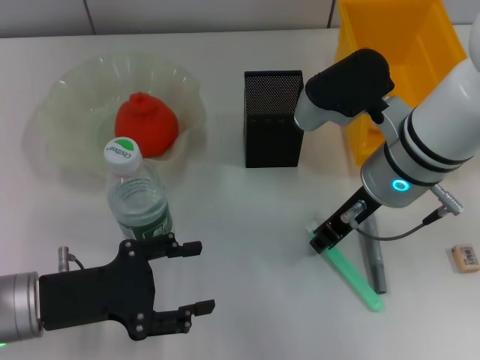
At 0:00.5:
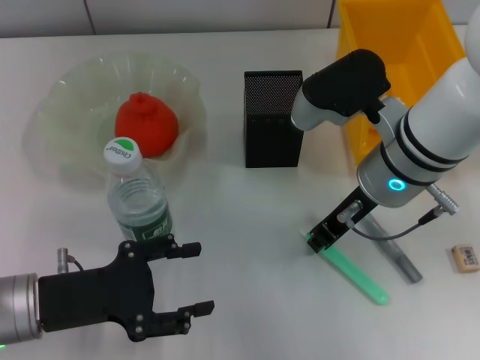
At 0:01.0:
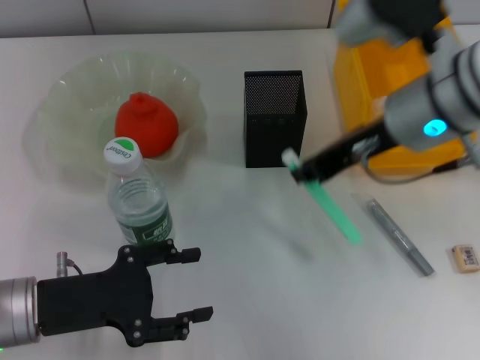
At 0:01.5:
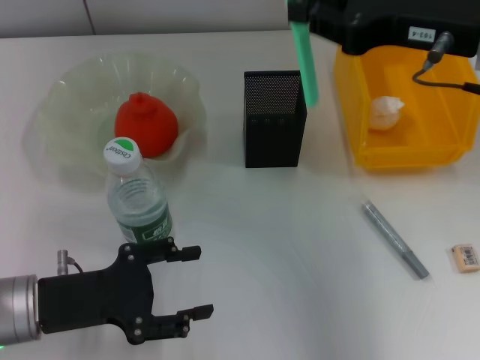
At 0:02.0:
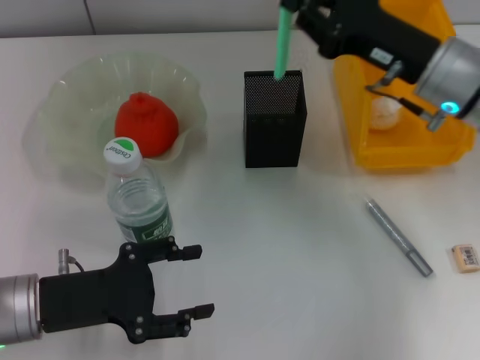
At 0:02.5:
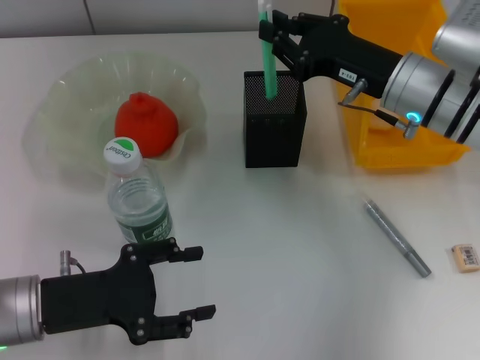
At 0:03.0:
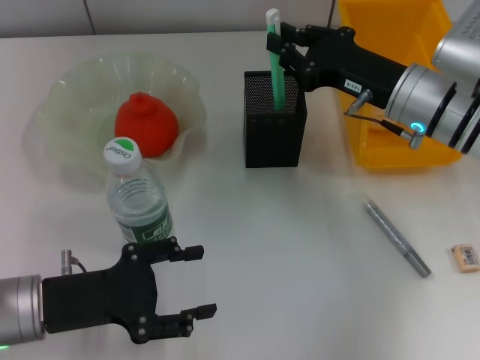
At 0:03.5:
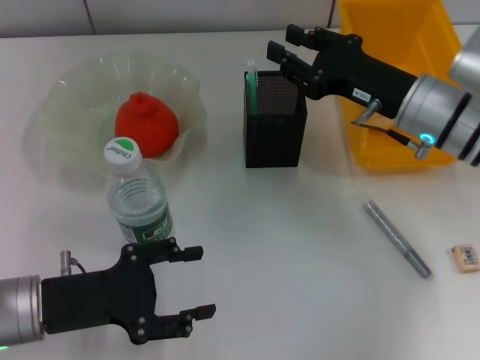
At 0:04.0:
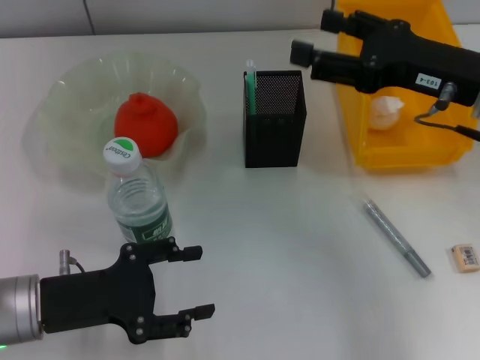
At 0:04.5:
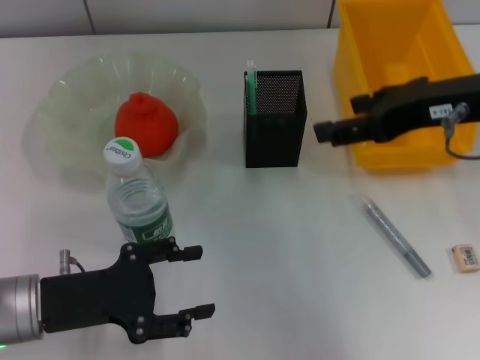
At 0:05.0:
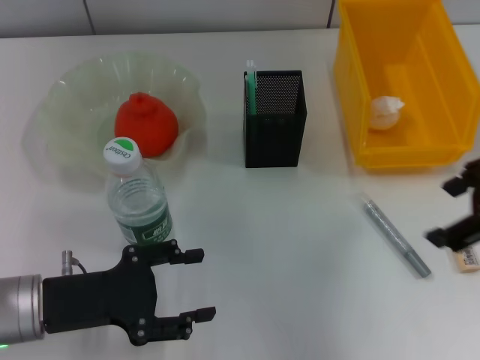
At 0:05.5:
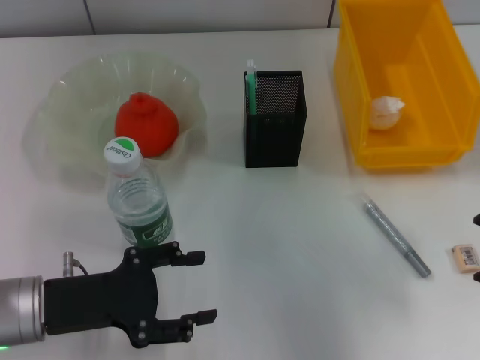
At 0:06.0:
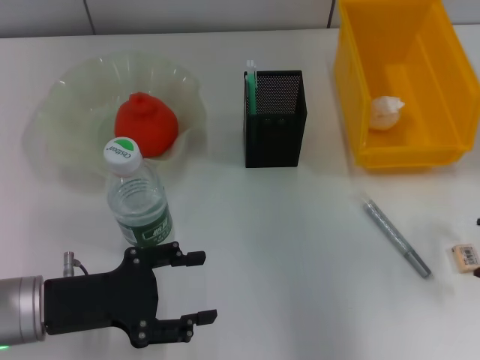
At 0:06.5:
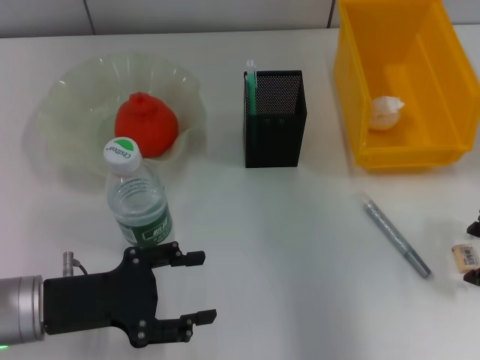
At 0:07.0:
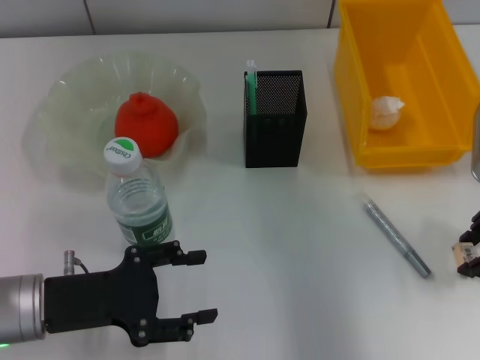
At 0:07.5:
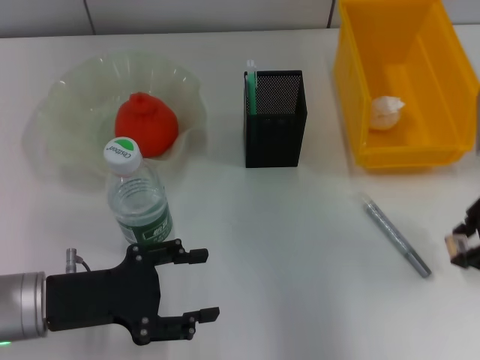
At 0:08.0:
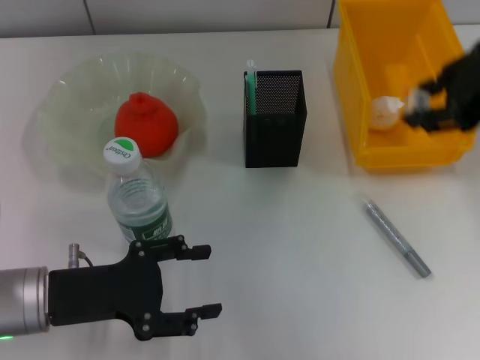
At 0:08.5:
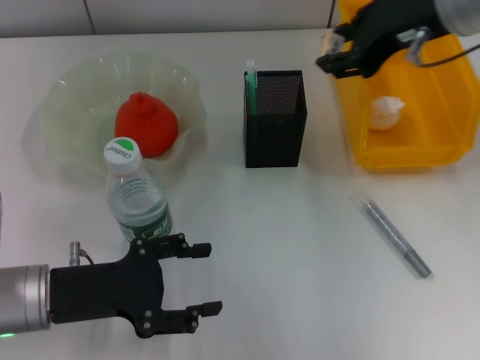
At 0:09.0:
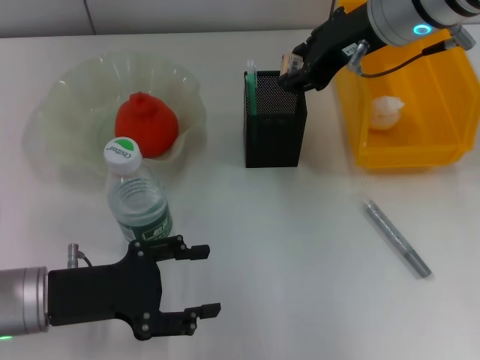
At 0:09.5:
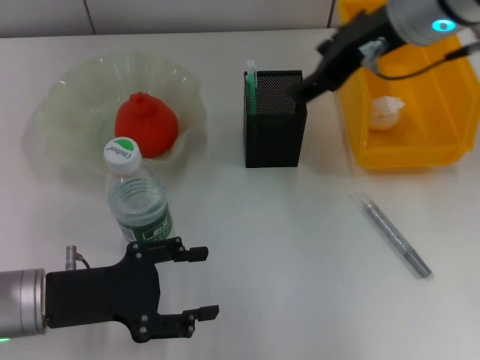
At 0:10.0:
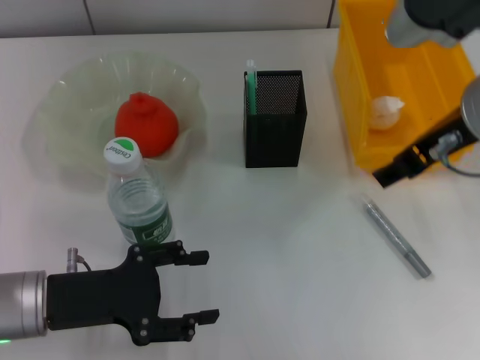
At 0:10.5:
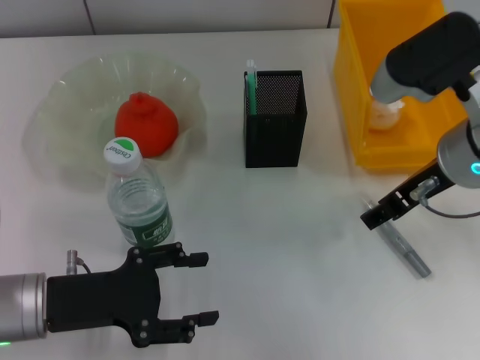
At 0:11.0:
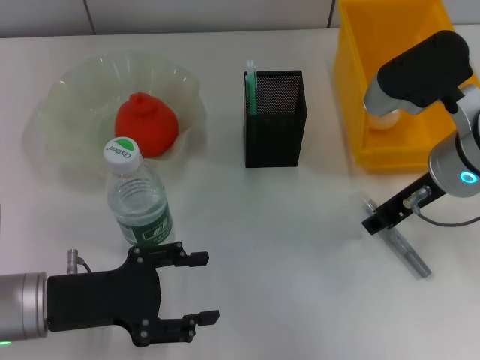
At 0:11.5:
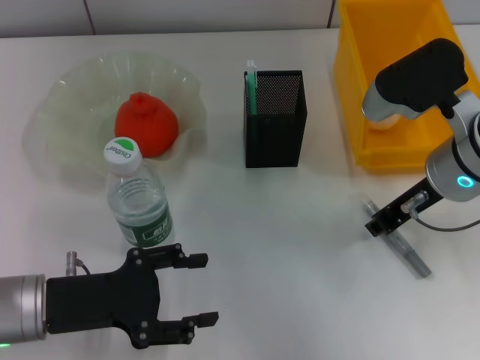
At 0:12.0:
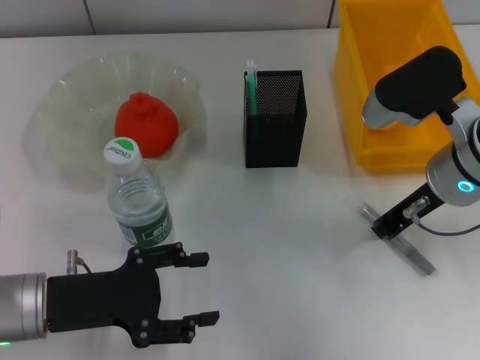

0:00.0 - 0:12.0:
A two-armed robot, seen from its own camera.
Step, 0:01.0 - 0:03.0: Place the blue utility knife into the pen holder with the right hand.
Step, 0:03.5 - 0:07.0: Grab the eraser with the right hand.
Step, 0:07.5 - 0:09.0: Put the eraser into the pen holder with the right hand.
Step, 0:09.5 - 0:11.5: Grab the gray glue with the right hand.
0:00.0 - 0:02.0: The right gripper heads to the right, covering approximately 5 cm, and moves approximately 10 cm upward and comes back.
0:02.0 - 0:04.0: The right gripper moves approximately 5 cm, and opens its fingers.
0:04.0 - 0:06.0: The right gripper is displaced to the right by roughly 5 cm.
0:06.0 - 0:08.0: The right gripper heads upward and to the left, covering roughly 10 cm, and closes its fingers.
0:08.0 - 0:10.0: The right gripper is displaced downward by approximately 5 cm, and opens up.
0:10.0 - 0:12.0: The right gripper is displaced downward by approximately 10 cm, and closes its fingers.

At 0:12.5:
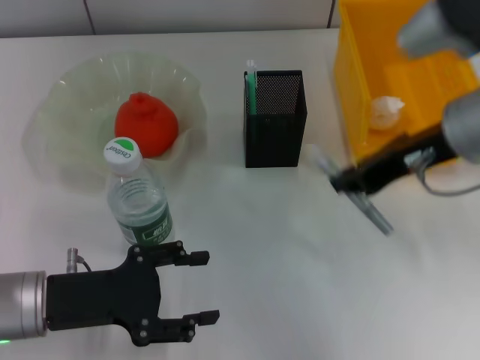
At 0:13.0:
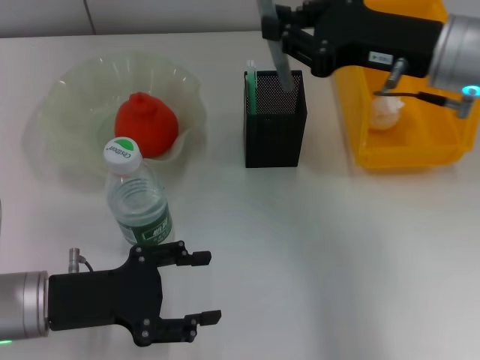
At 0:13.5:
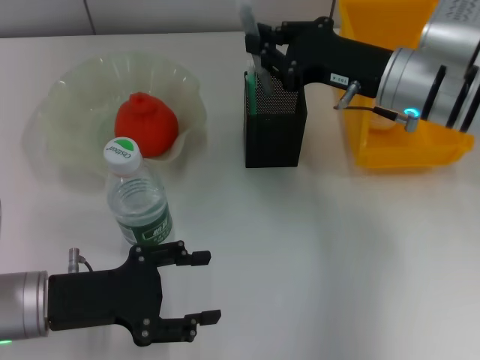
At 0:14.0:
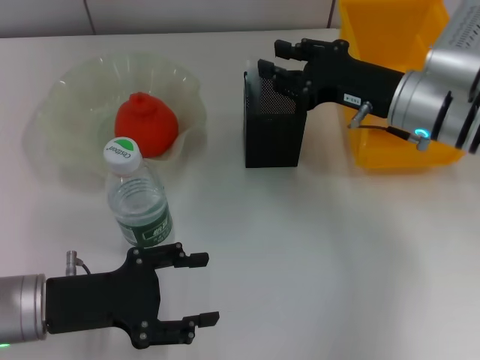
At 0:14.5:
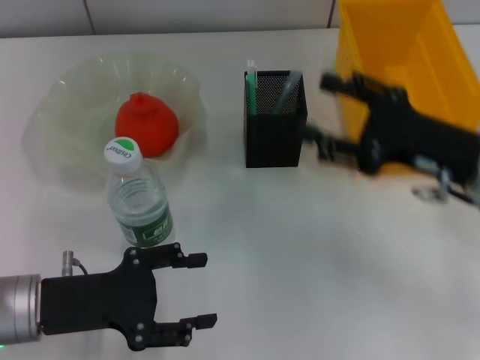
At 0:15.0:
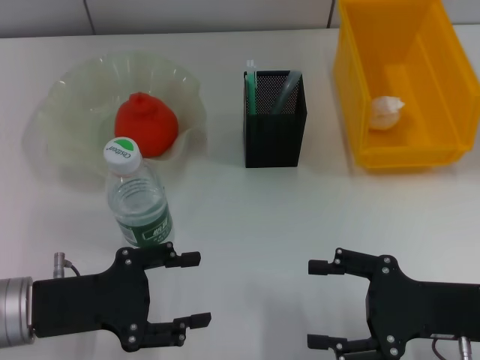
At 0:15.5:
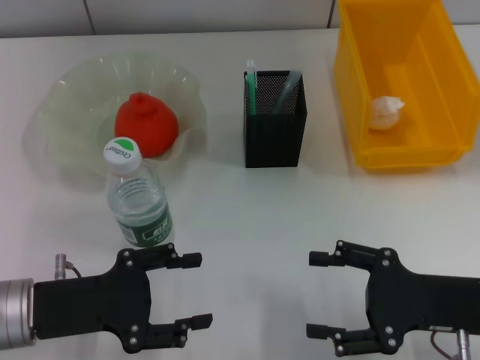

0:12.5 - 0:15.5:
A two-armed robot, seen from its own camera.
Step, 0:12.5 - 0:13.5: Place the gray glue into the pen holder with the right hand.
0:12.5 - 0:14.0: The right gripper heads downward and forward, covering about 10 cm.
0:14.0 - 0:15.5: The right gripper shifts about 15 cm backward, and opens.

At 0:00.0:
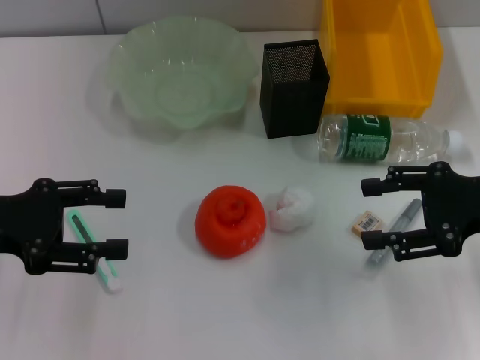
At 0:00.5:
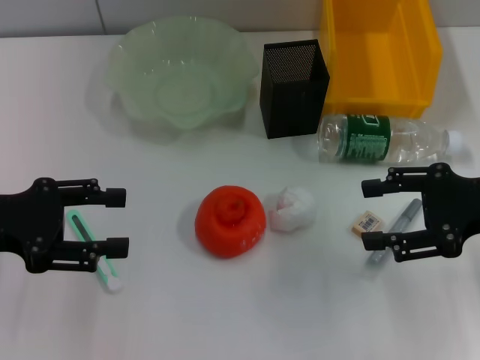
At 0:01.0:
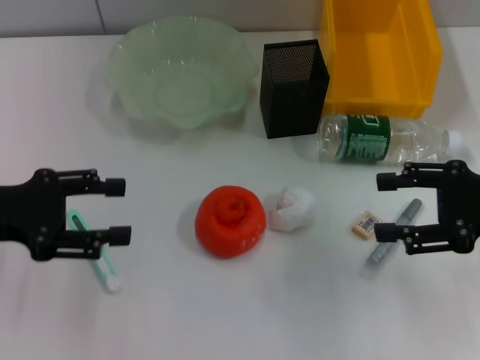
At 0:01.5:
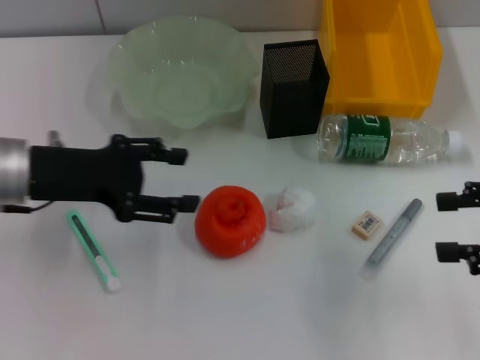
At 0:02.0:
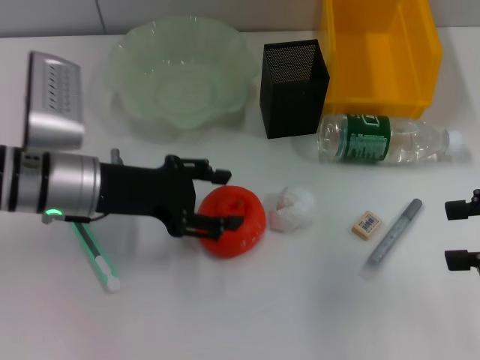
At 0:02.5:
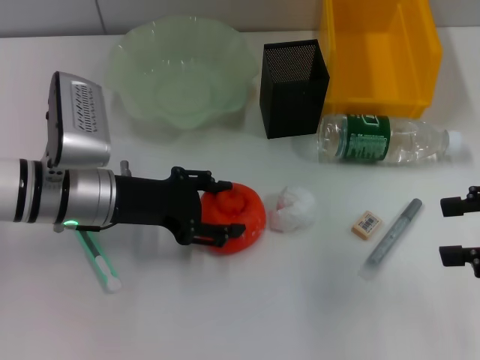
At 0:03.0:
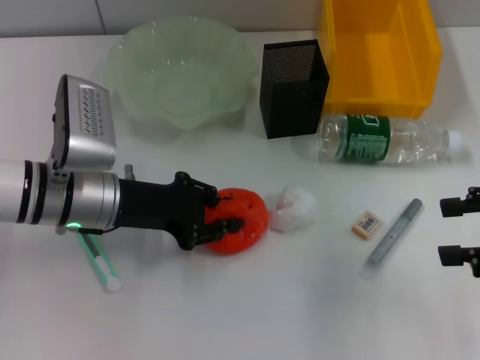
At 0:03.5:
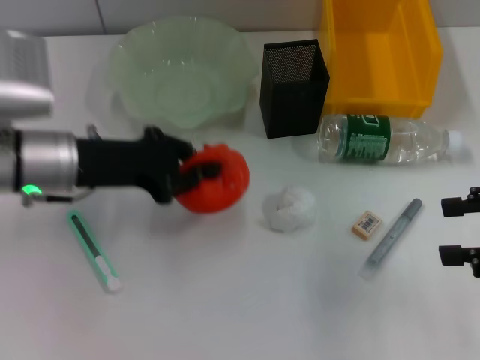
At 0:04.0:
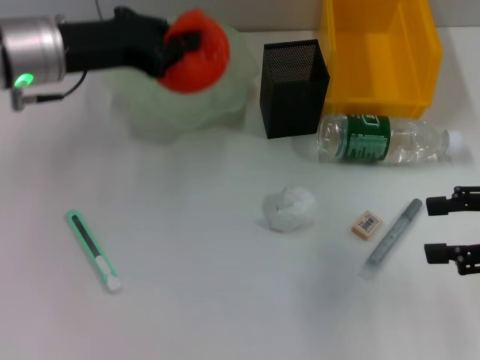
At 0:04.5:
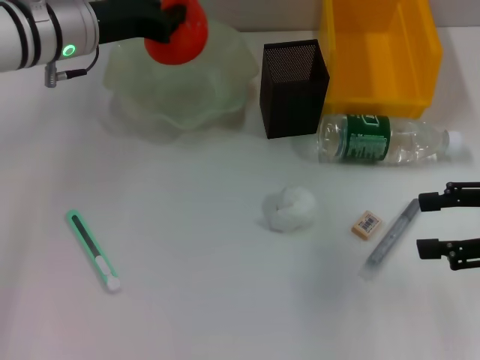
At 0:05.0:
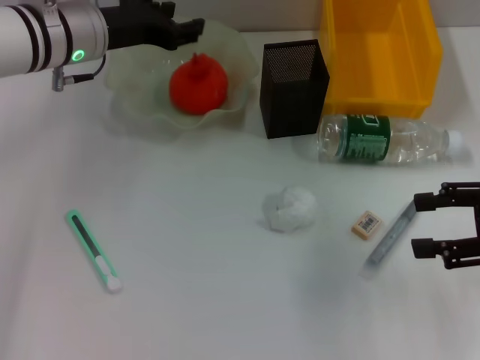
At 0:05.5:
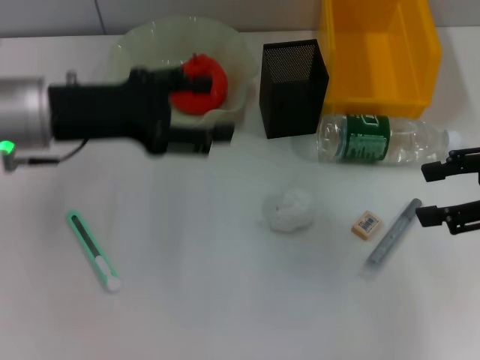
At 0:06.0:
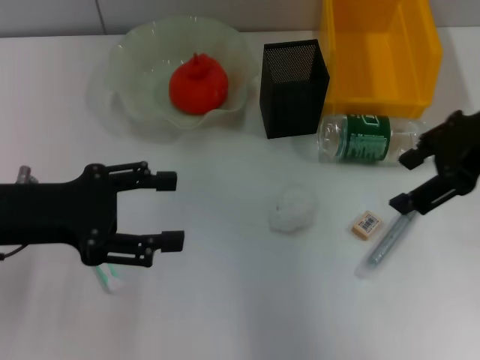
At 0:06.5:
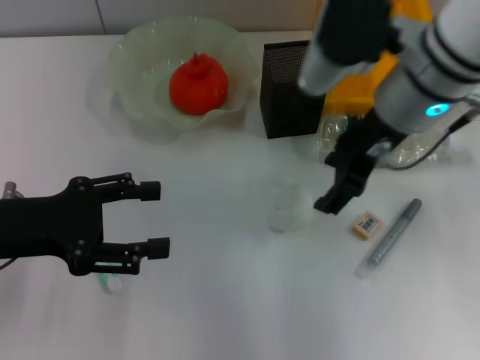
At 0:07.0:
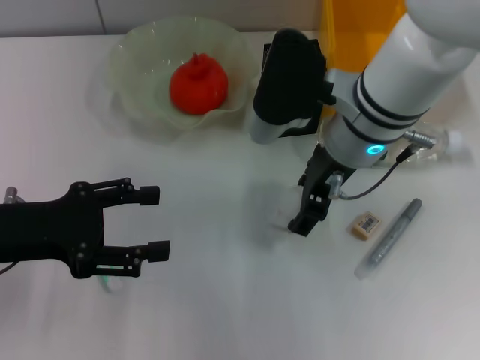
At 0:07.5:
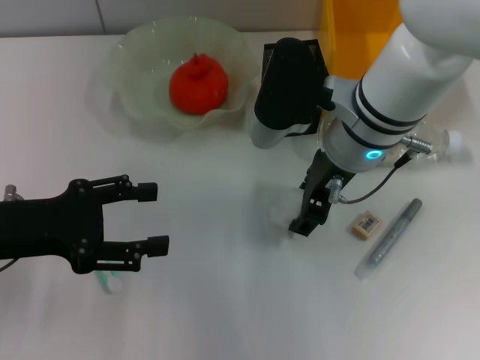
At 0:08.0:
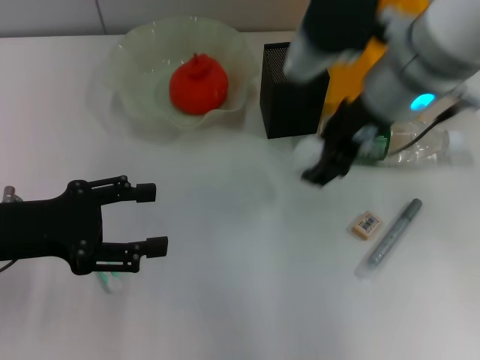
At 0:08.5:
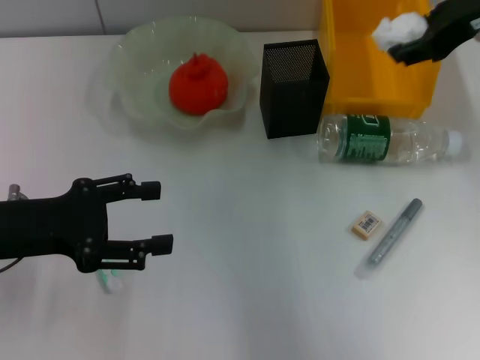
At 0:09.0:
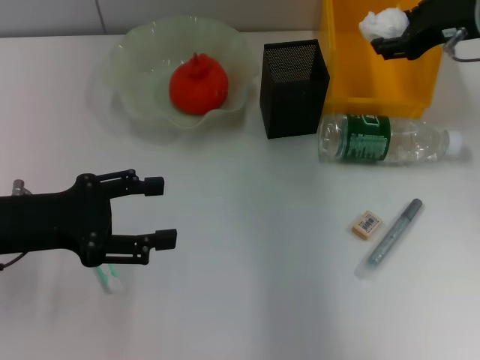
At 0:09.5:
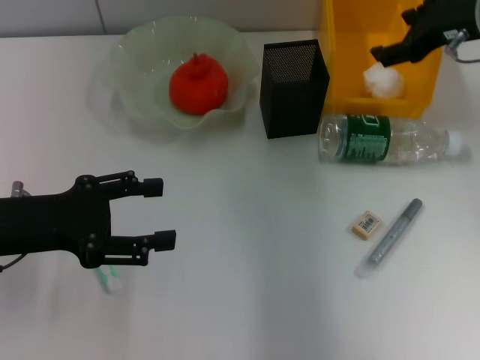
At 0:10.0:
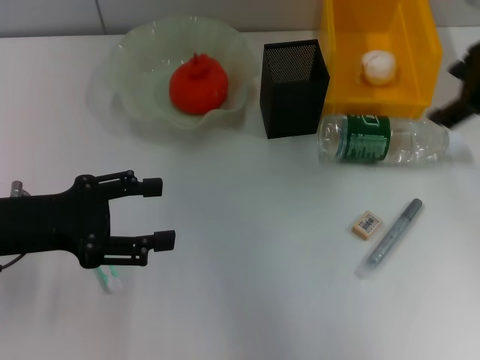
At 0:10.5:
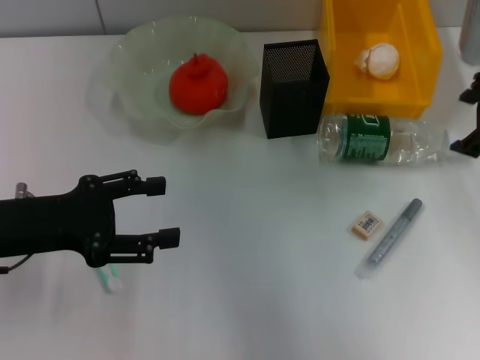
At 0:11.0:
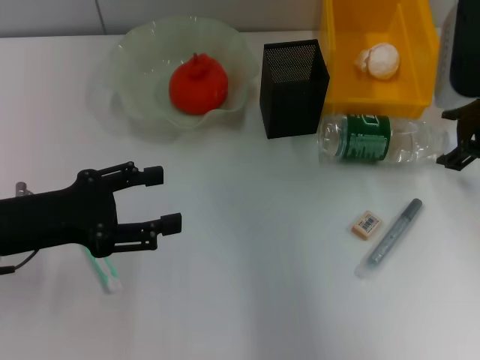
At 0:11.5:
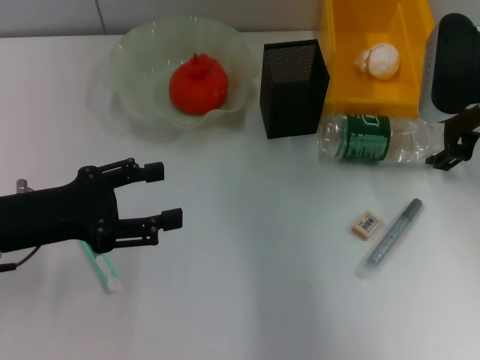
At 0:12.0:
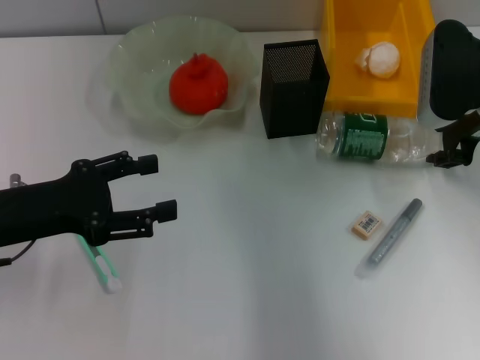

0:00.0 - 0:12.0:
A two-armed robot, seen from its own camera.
Step, 0:00.0 - 0:02.5: Grab the orange with the left hand.
Step, 0:03.0 - 0:05.0: Place the orange into the fruit bowl with the left hand.
Step, 0:05.5 - 0:07.5: Grab the paper ball with the right hand.
Step, 0:08.0 - 0:09.5: Place the paper ball into the trash can with the right hand.
0:00.0 - 0:02.0: The right gripper goes approximately 5 cm to the right. The left gripper moves to the right and forward, approximately 15 cm.
0:02.0 - 0:04.0: The left gripper is displaced upward and forward by some 10 cm, and closes.
0:04.0 - 0:06.0: The right gripper heads to the left, upward and forward, covering roughly 15 cm, while the left gripper goes some 15 cm backward and to the left, and opens.
0:06.0 - 0:08.0: The right gripper heads to the left, covering about 10 cm.
0:08.0 - 0:10.0: The right gripper is displaced to the right by approximately 10 cm.
0:10.0 - 0:12.0: The right gripper shifts about 10 cm downward, and closes its fingers.
